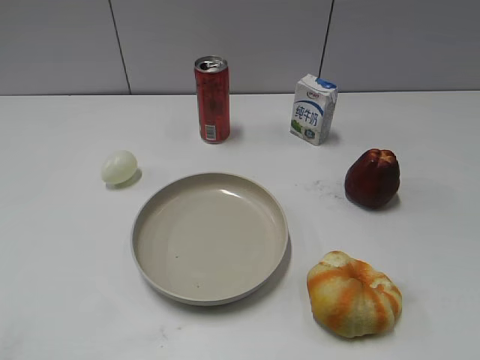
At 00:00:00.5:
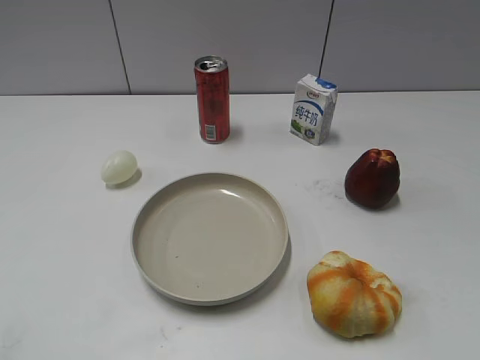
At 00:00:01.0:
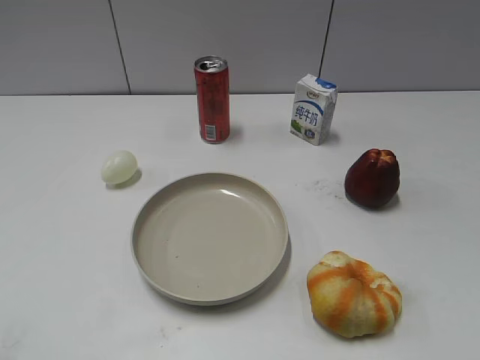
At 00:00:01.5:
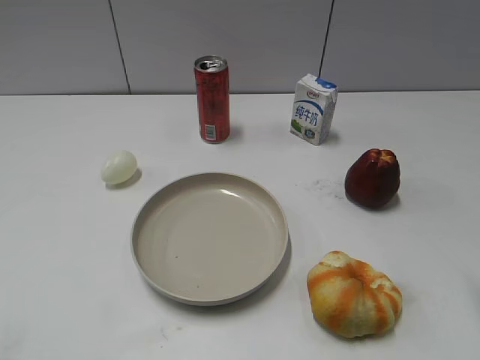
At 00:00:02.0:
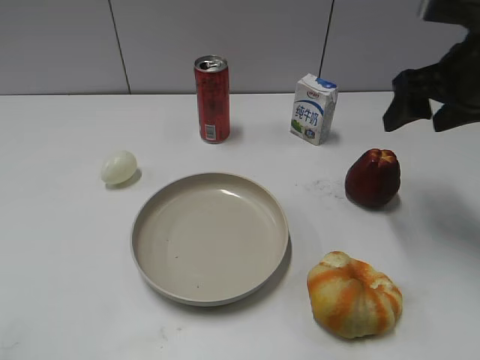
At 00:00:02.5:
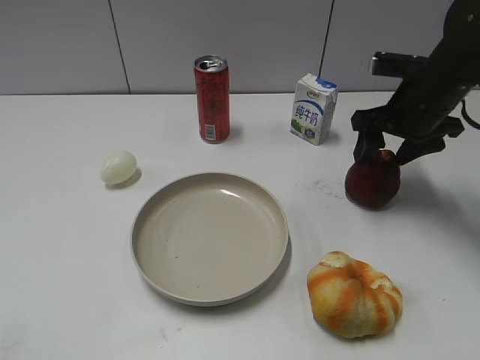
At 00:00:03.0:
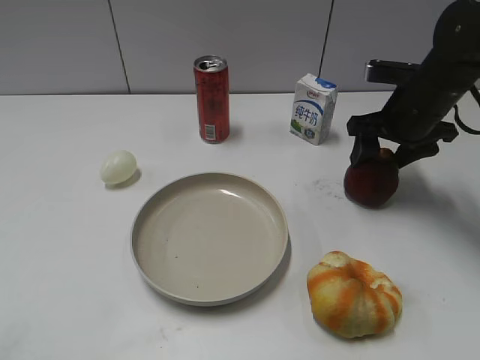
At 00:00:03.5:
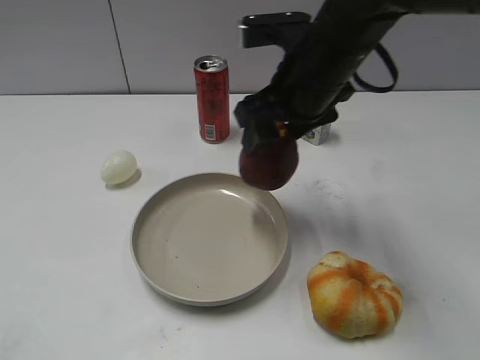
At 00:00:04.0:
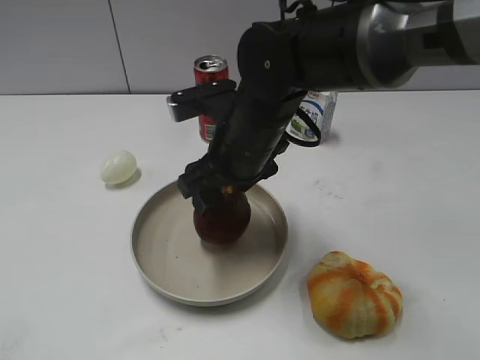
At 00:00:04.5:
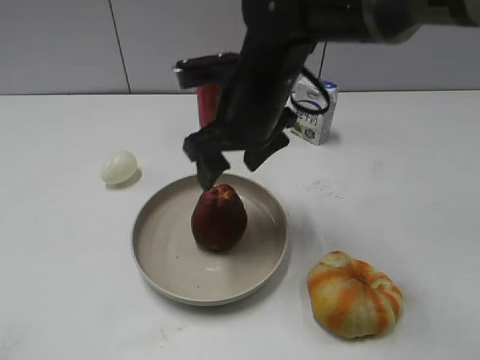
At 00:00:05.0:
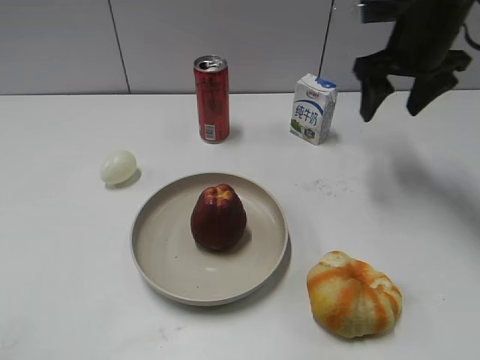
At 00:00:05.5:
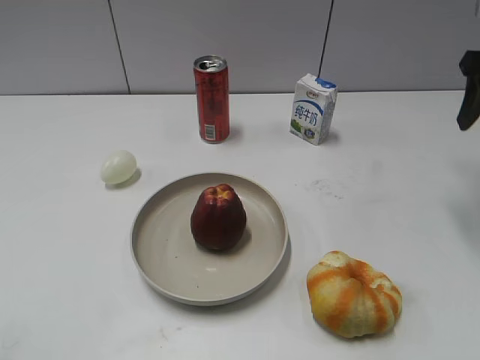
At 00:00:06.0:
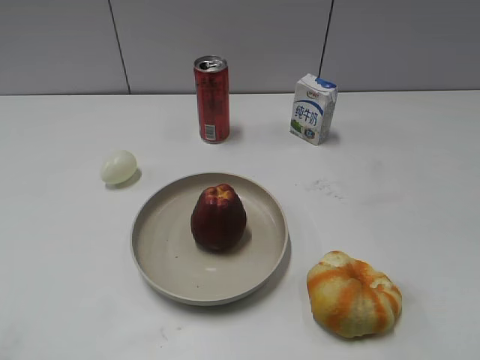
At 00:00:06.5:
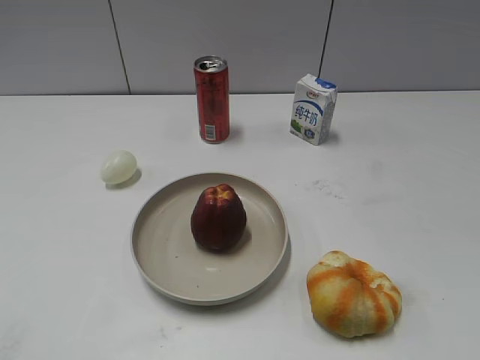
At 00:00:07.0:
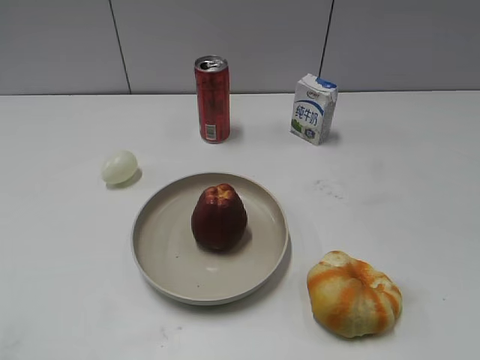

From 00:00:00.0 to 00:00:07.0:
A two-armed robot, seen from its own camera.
Step, from 00:00:01.0 to 00:00:03.0: Grasp the apple with right gripper.
Step, from 00:00:03.5 to 00:00:04.5: Place the apple on the plate with right gripper.
From 00:00:02.0 to 00:00:03.5: The right gripper goes approximately 15 cm to the left, and closes its fingers.
From 00:00:03.5 to 00:00:05.0: The right gripper travels to the right and forward by some 20 cm, and opens up.
From 00:00:05.0 to 00:00:07.0: The right gripper shifts about 40 cm backward, and closes up.

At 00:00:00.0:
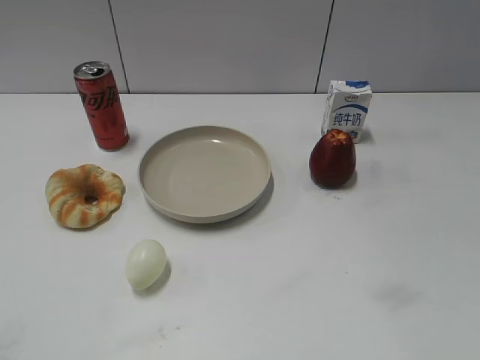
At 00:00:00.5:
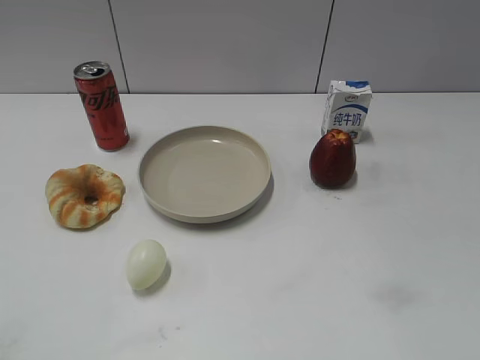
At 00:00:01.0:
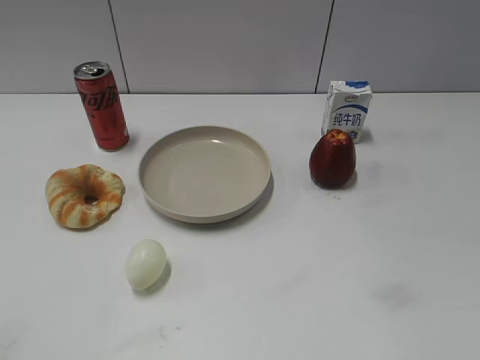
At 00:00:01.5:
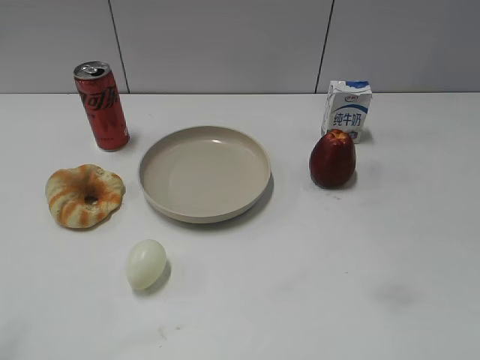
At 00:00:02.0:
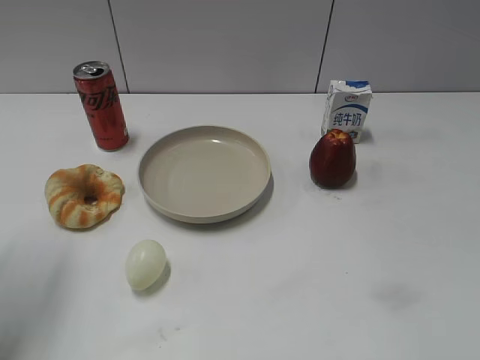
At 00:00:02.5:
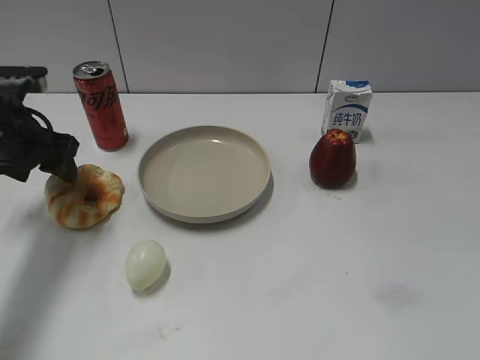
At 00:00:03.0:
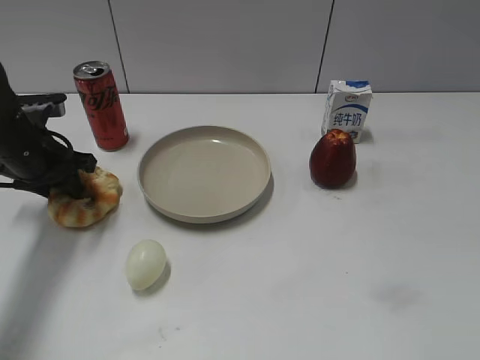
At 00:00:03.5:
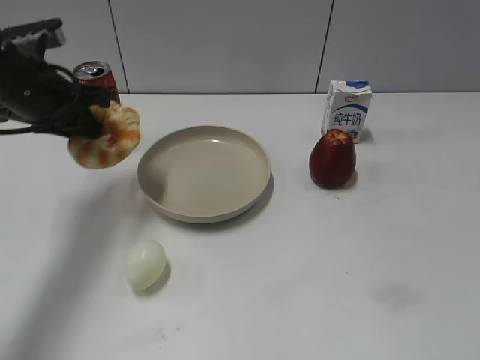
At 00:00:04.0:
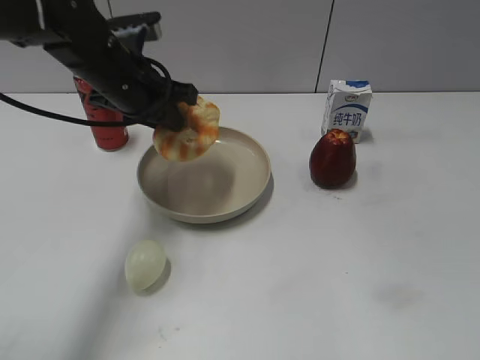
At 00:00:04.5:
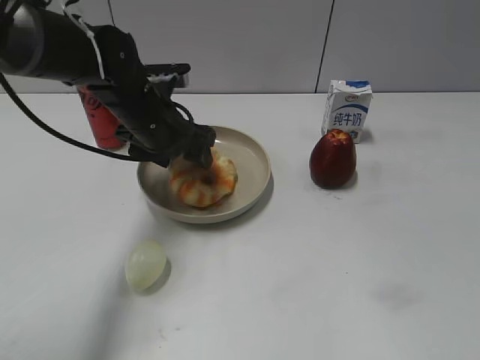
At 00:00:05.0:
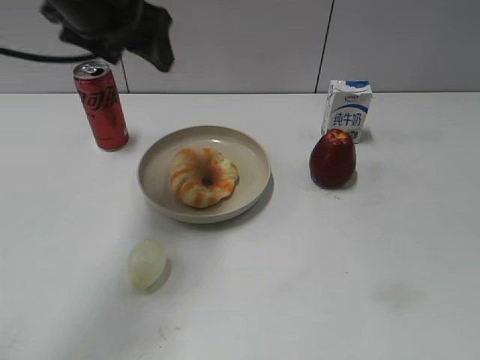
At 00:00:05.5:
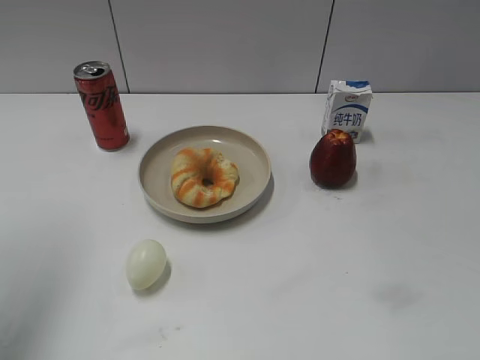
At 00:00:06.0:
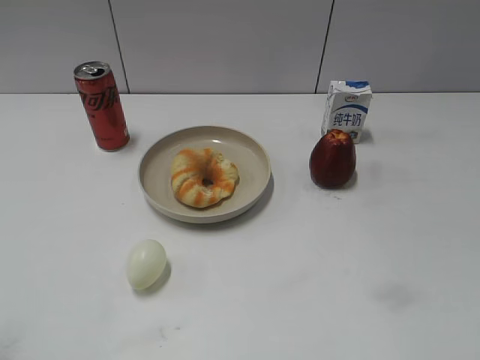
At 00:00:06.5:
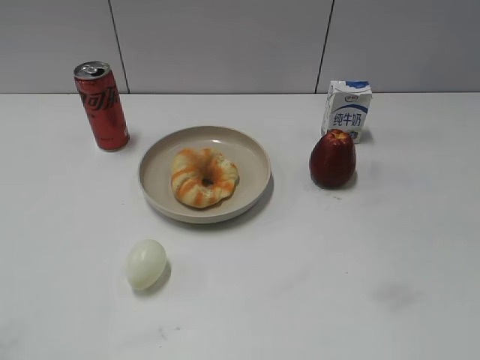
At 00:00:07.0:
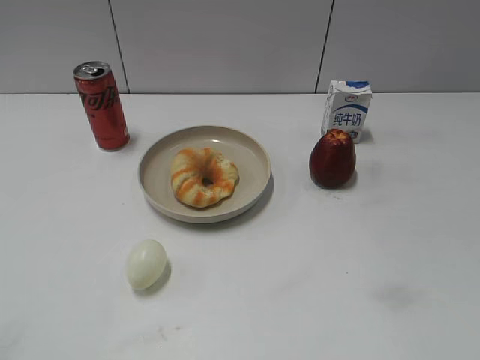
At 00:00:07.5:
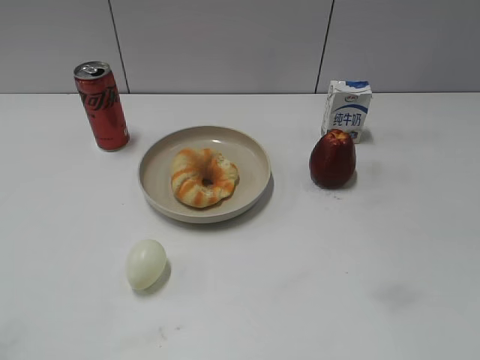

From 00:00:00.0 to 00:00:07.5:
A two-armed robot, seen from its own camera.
Step, from 00:00:00.0 to 00:00:03.0: Grasp the round bread with left gripper.
Step, from 00:00:03.5 to 00:00:04.5: Place the round bread on the plate with left gripper.
From 00:00:02.0 to 00:00:04.0: The left gripper is displaced to the right, forward and downward by some 20 cm, and closes up.
From 00:00:04.0 to 00:00:05.5: The left gripper shifts some 30 cm to the left, upward and backward, and opens.
From 00:00:05.5 to 00:00:07.5: The left gripper travels backward and downward by about 20 cm.

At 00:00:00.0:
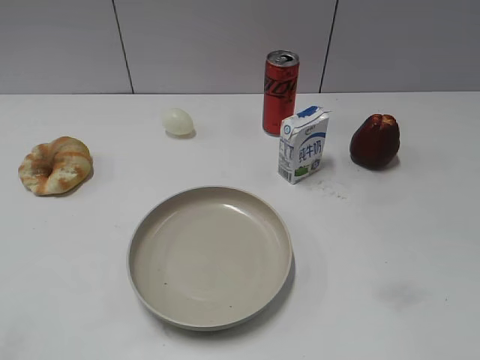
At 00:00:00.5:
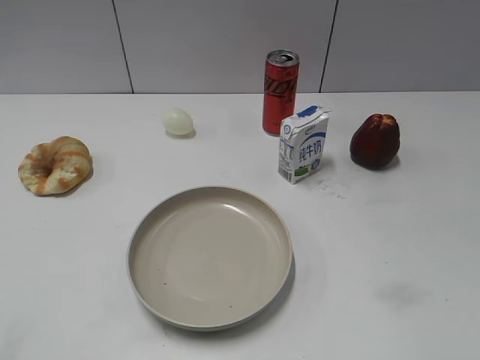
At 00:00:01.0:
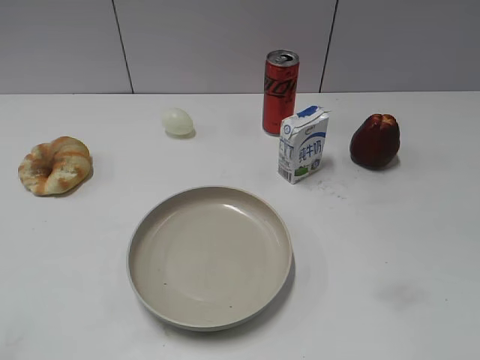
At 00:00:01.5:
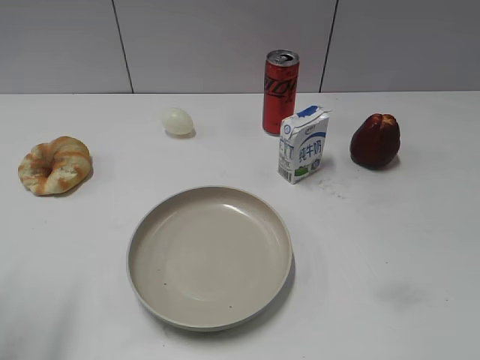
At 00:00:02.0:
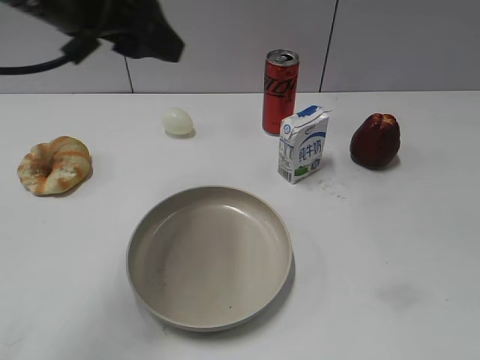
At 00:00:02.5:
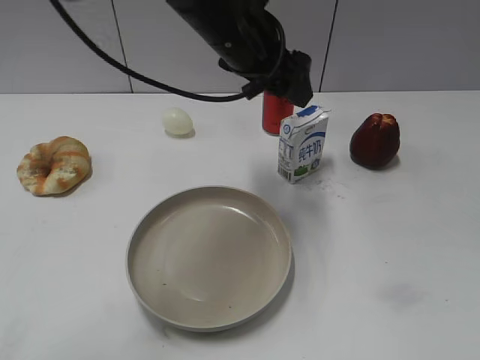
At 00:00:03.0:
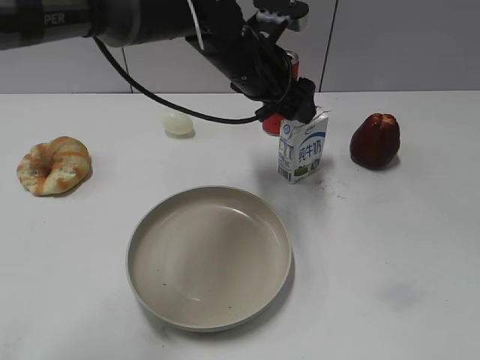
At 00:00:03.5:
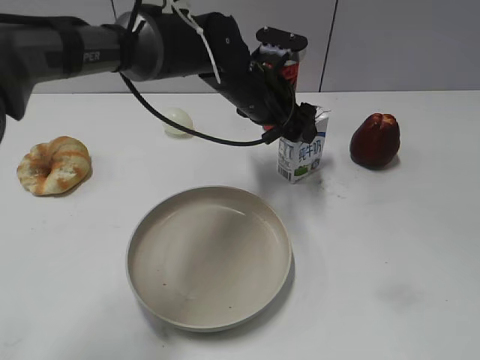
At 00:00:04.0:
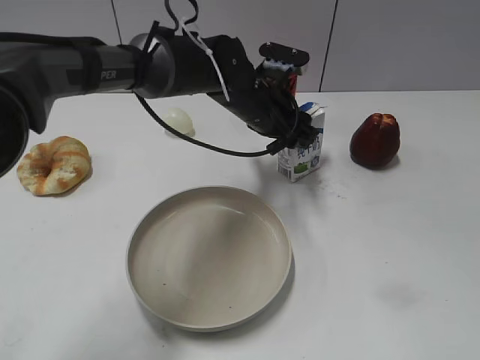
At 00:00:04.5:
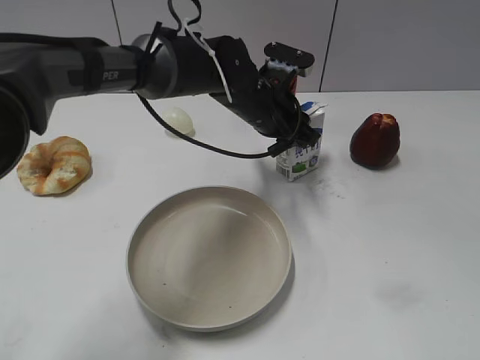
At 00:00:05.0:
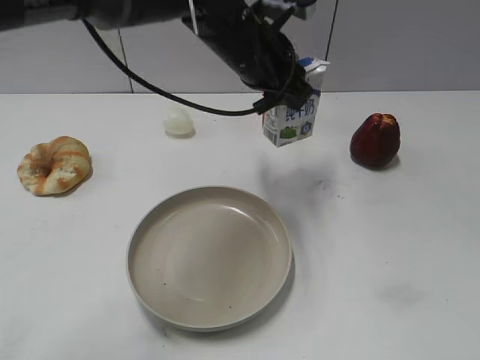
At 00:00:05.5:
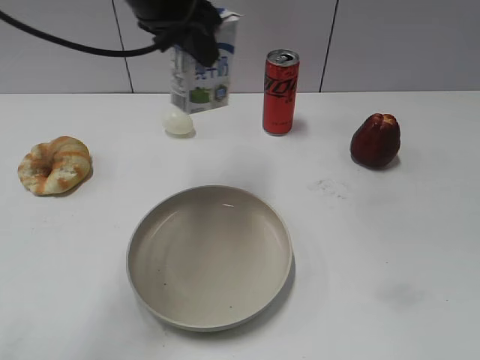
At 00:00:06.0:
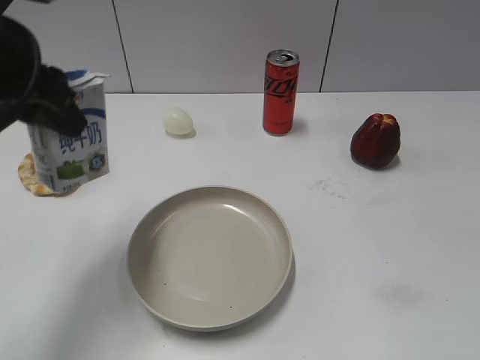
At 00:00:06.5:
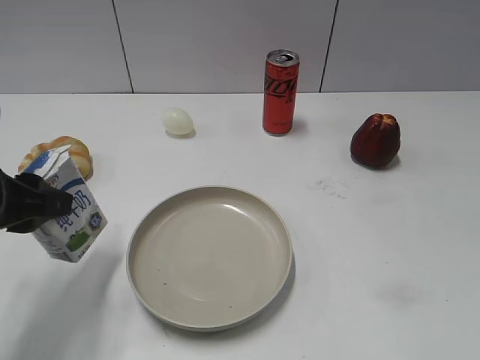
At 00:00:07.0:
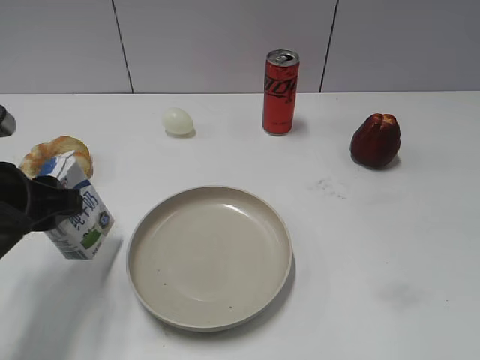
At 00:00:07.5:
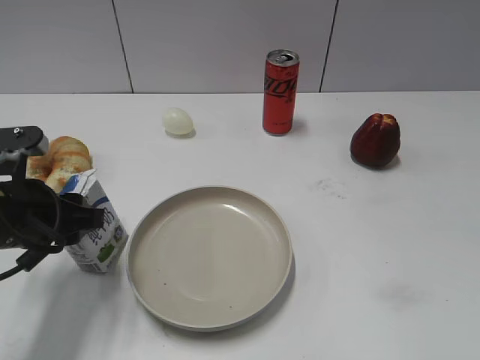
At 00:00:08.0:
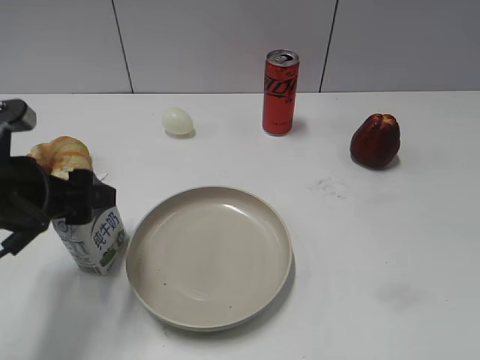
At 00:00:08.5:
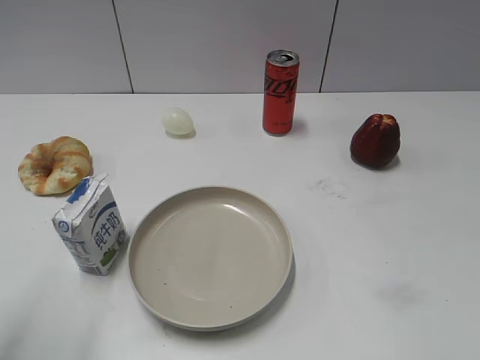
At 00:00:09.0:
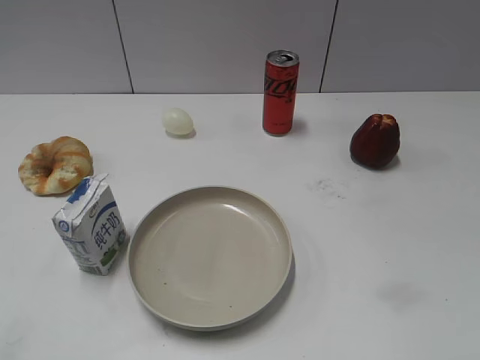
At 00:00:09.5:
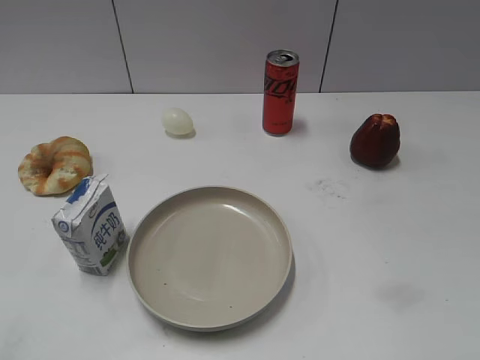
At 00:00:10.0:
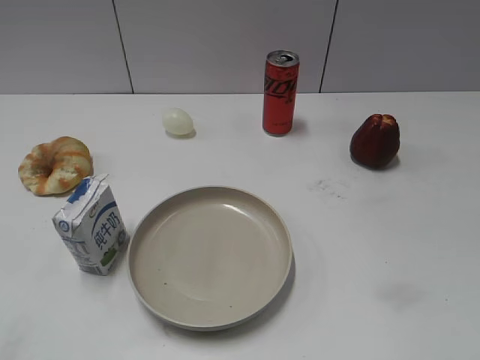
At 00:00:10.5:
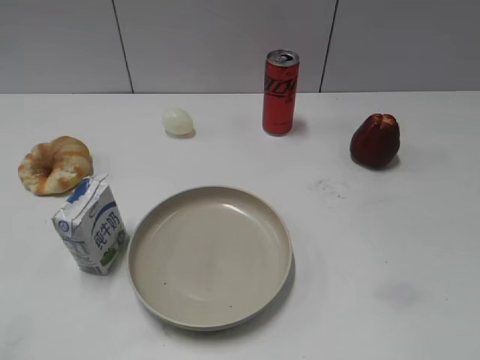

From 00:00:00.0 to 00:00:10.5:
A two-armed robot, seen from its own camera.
Step, from 00:00:00.0 to 00:00:04.0: Grasp the milk with left gripper.
Step, from 00:00:05.0 to 00:00:08.0: Place the milk on the table with left gripper.
From 00:00:02.0 to 00:00:04.0: The left gripper travels to the right, downward and forward by some 30 cm, and closes.
From 00:00:04.0 to 00:00:06.5: The left gripper heads to the left and backward, covering some 35 cm, and closes.
From 00:00:06.5 to 00:00:08.5: The left gripper travels upward by roughly 10 cm, and opens up.
